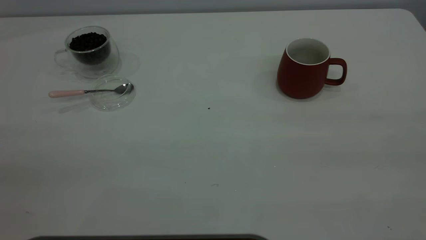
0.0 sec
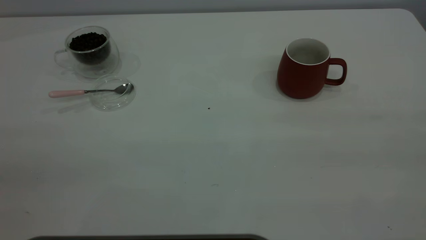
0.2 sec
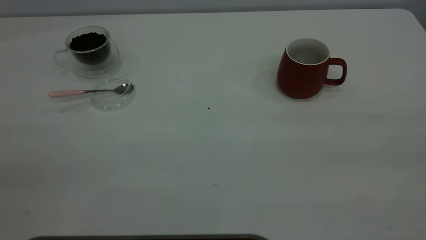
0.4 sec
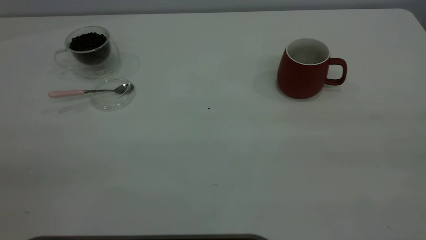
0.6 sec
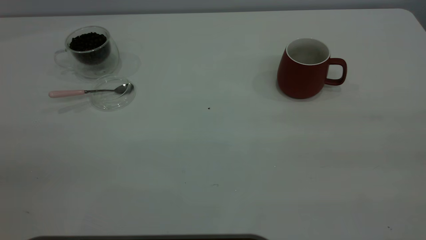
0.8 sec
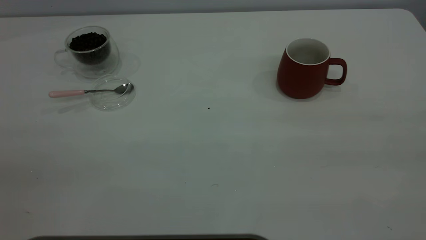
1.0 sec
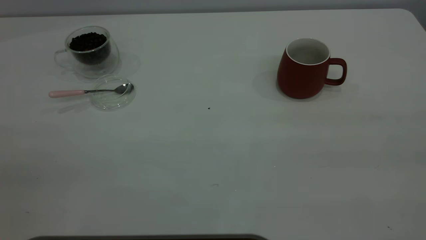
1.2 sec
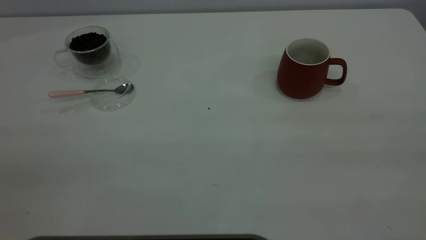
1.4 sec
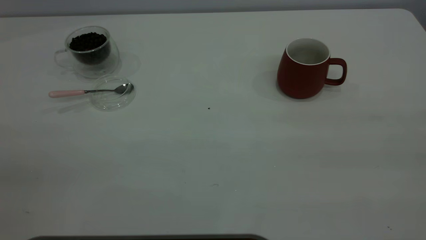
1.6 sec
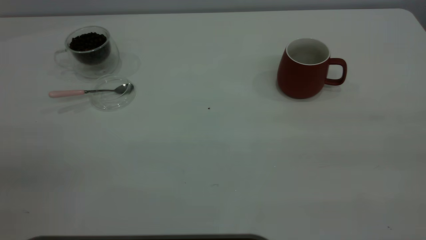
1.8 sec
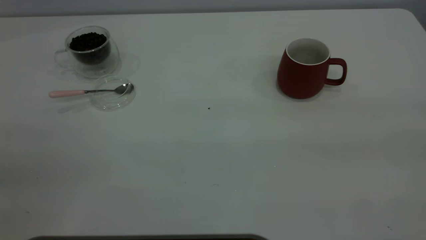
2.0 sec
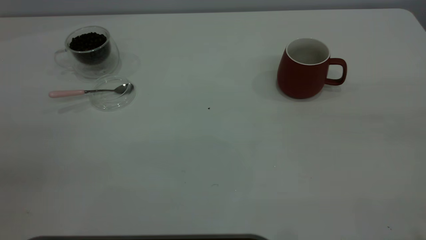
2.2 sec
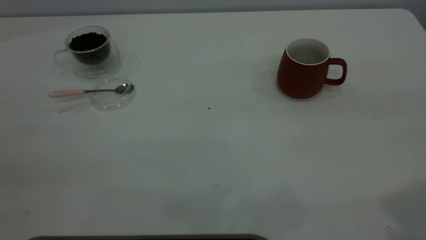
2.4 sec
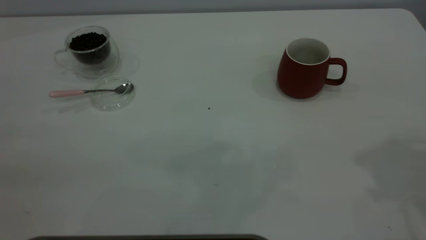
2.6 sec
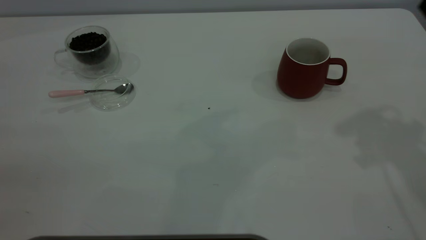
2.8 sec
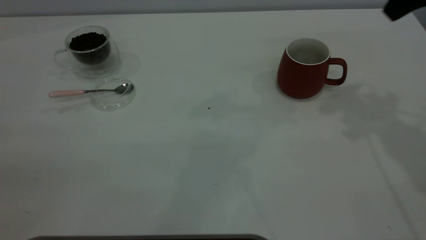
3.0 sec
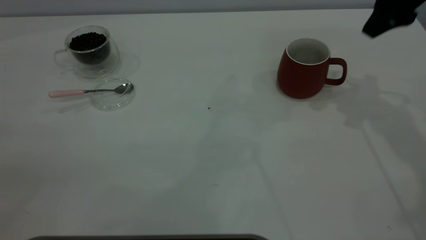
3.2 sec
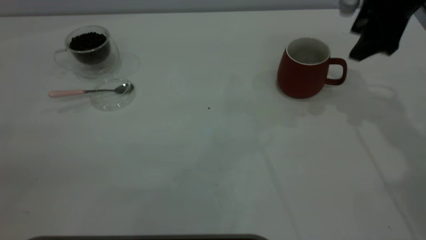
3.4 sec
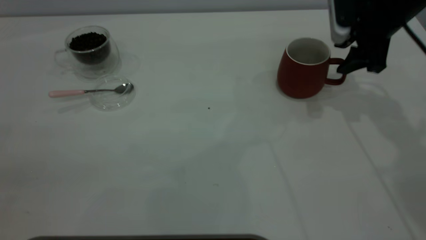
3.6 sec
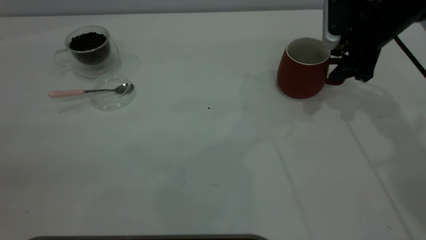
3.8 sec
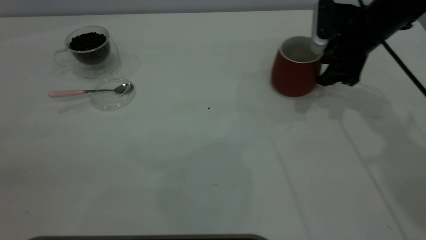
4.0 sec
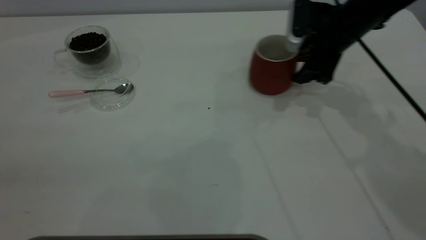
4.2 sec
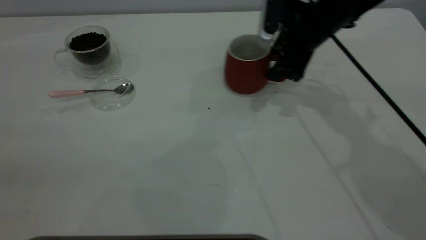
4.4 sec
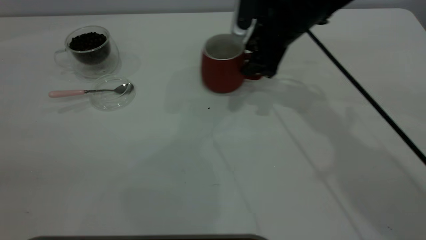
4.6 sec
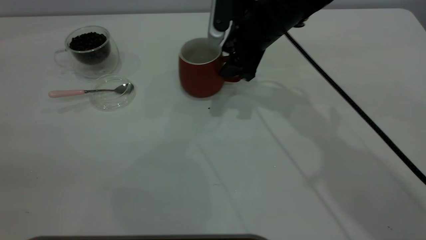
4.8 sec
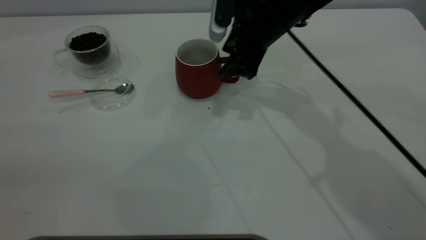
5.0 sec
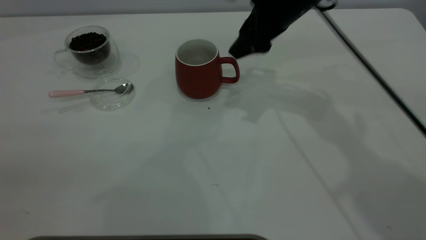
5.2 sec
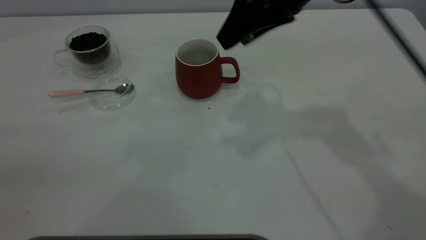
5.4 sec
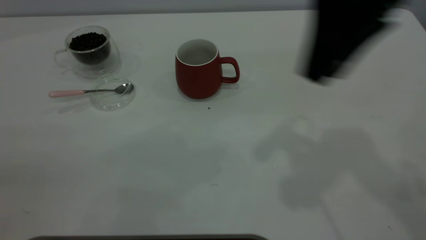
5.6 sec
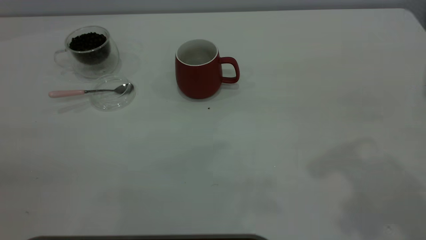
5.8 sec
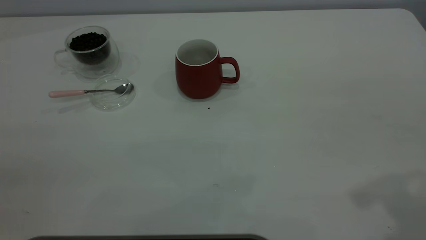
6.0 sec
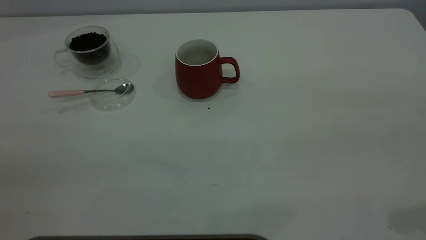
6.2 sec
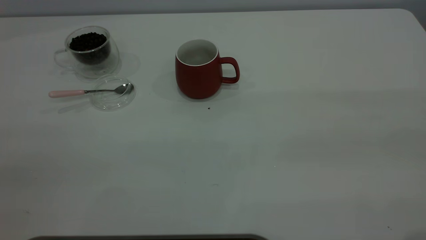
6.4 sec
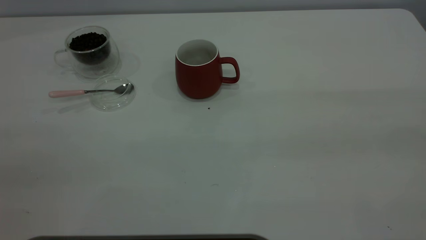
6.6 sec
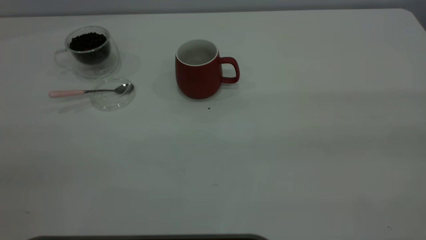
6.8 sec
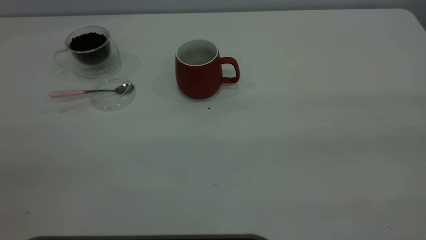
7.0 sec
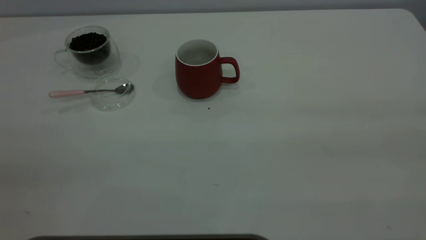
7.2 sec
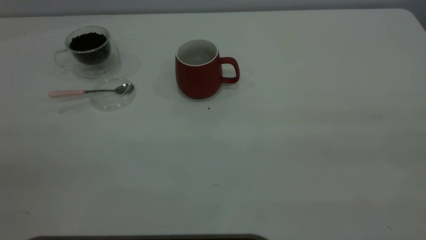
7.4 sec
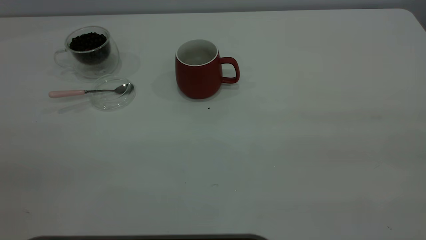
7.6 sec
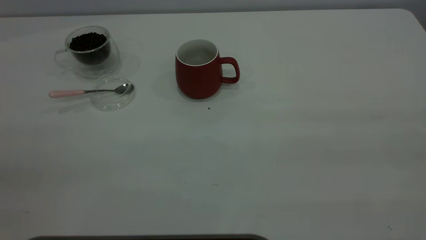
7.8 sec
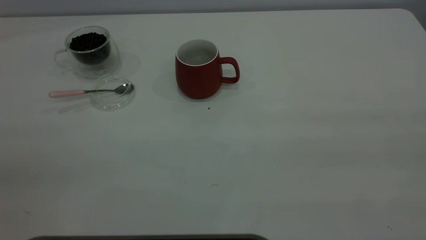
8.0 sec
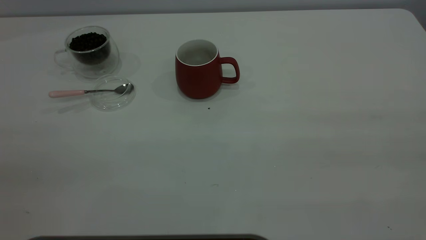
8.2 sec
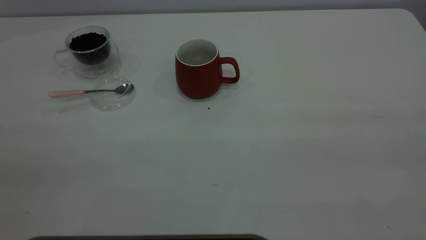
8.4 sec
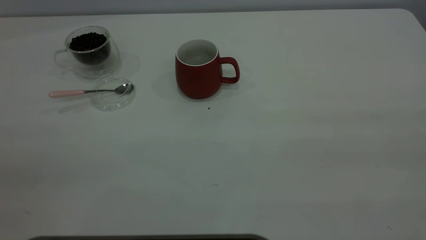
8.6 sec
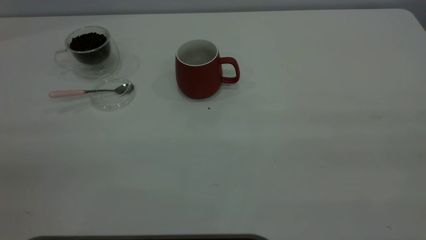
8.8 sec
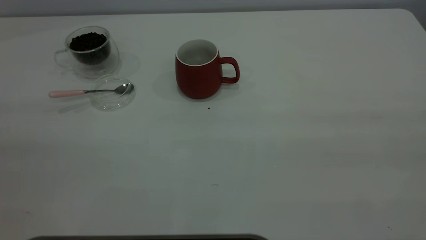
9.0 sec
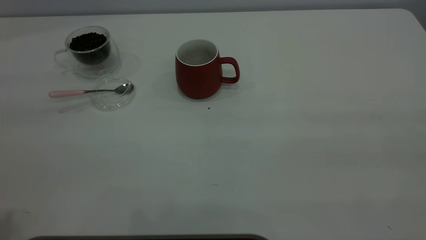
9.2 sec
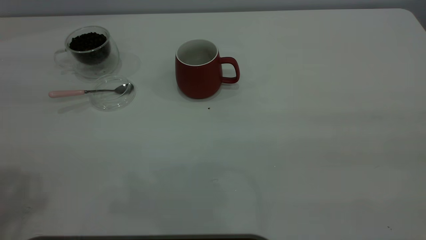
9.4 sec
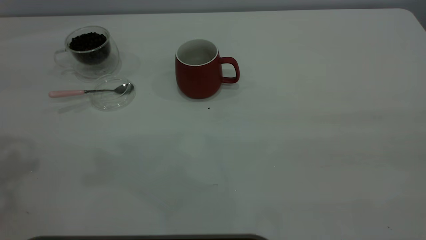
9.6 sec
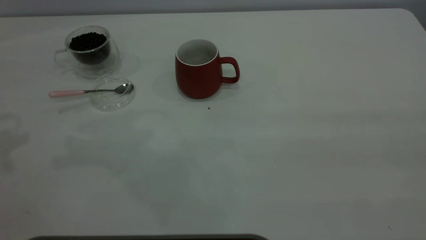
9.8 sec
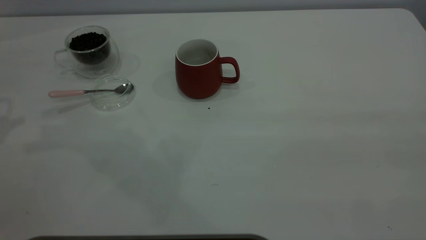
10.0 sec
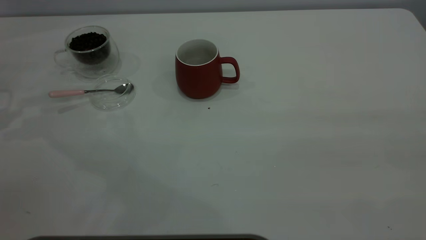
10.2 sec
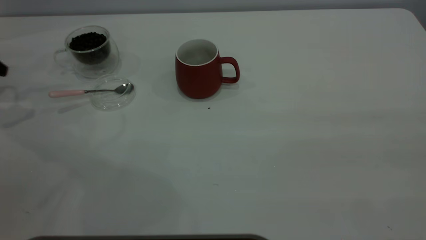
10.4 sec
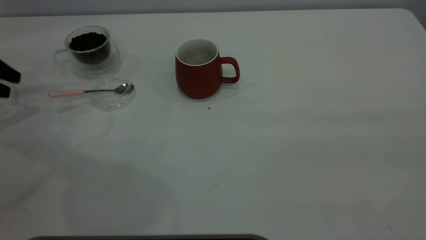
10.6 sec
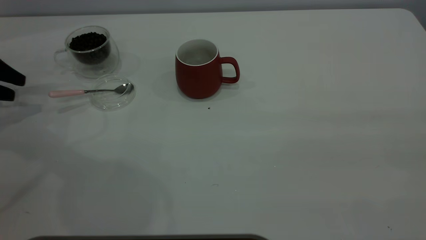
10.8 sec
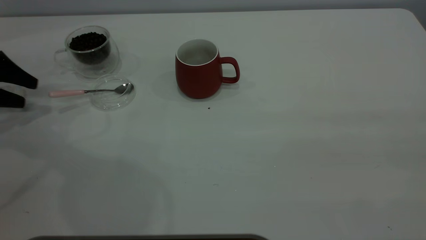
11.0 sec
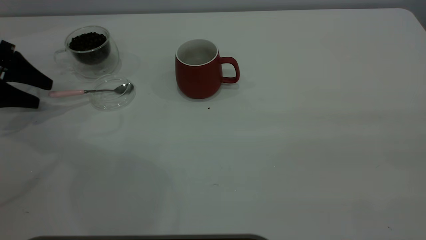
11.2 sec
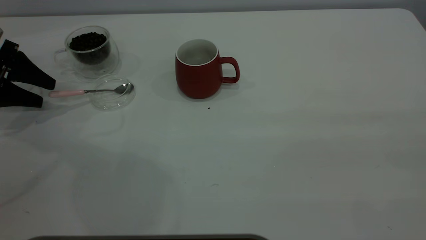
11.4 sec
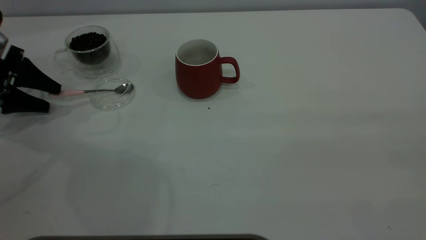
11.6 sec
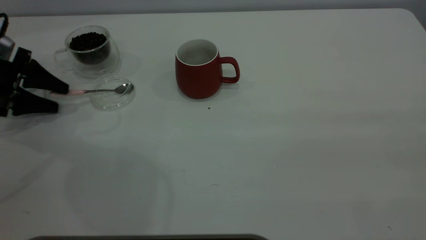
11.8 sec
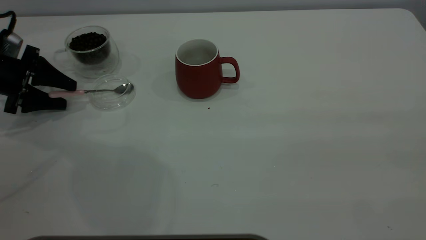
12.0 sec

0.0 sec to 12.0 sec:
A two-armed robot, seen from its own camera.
Task of the whole recording: the right gripper place the red cup in the center of the table, the left gripper take the pink spoon from the cup lid and scoop out the coffee beans from the coffee cup and put them into the red cup, the left gripper put the spoon back into the cup lid.
Step, 0.0 sec to 5.4 sec: Move the cup to the center of view.
0.0 sec to 1.6 sec: The two grippers keep their place.
3.0 sec to 4.4 sec: The right gripper heads downward, to the left and forward, covering some 20 cm.
4.4 sec to 6.0 sec: The right gripper moves backward, upward and to the right, roughly 35 cm.
10.4 sec to 12.0 sec: The left gripper moves downward and to the right, some 10 cm.

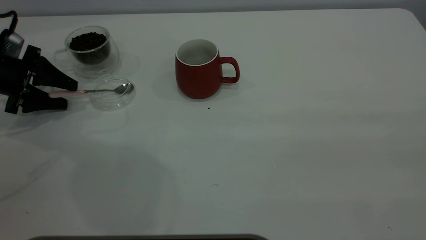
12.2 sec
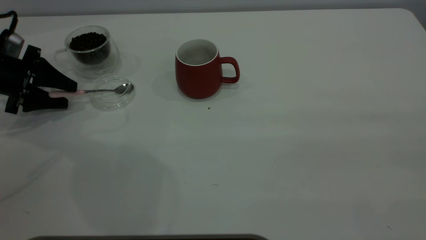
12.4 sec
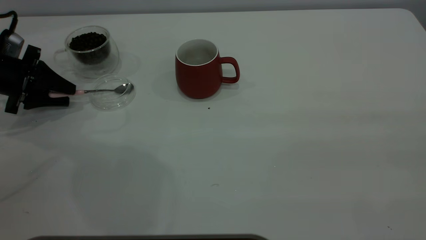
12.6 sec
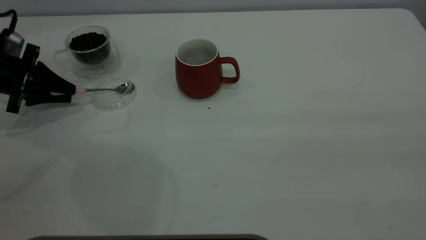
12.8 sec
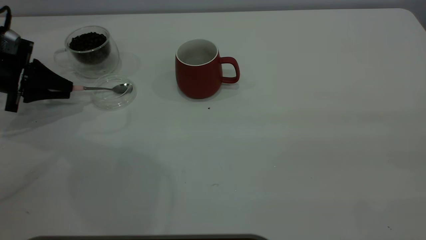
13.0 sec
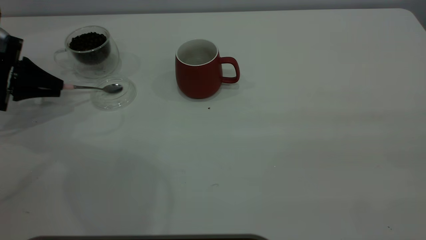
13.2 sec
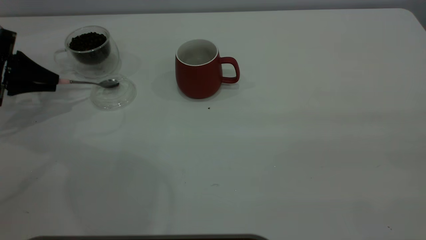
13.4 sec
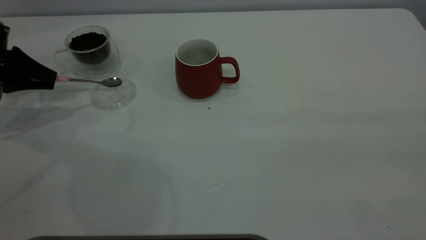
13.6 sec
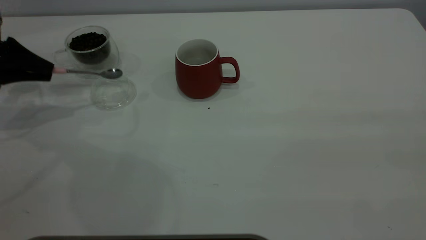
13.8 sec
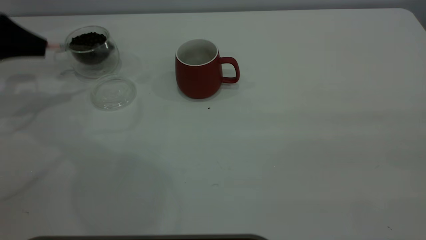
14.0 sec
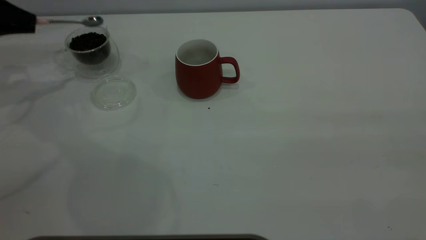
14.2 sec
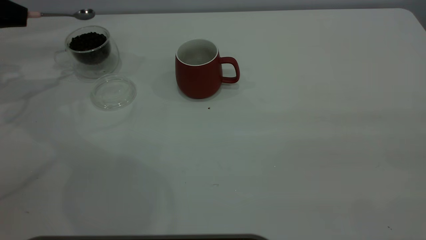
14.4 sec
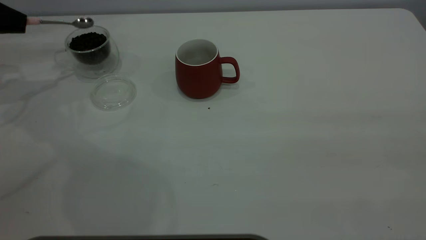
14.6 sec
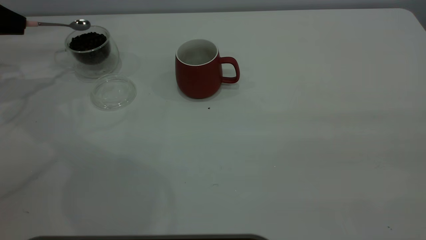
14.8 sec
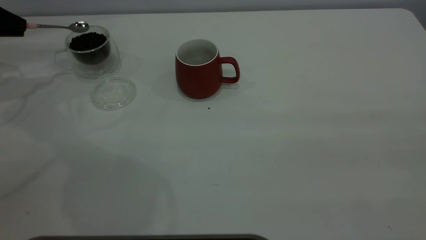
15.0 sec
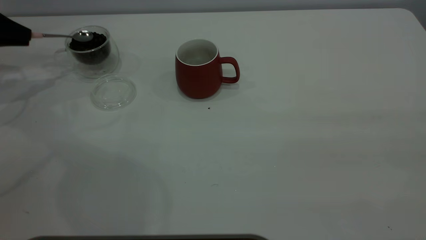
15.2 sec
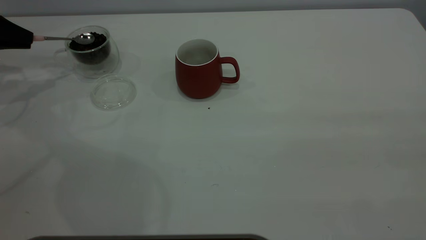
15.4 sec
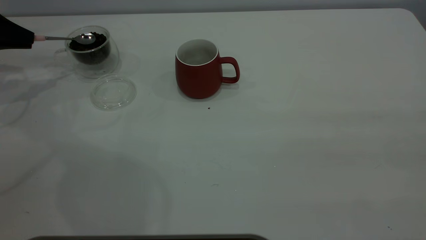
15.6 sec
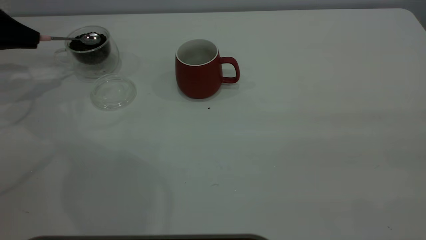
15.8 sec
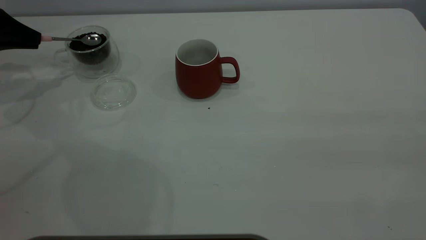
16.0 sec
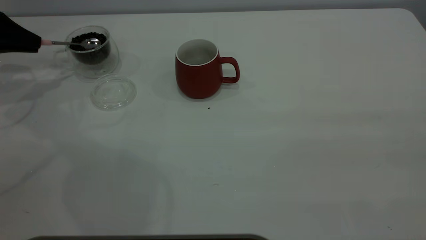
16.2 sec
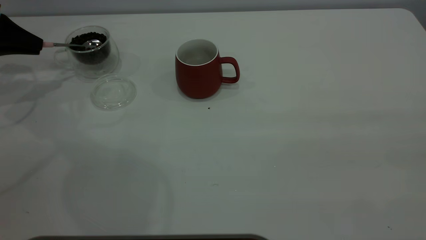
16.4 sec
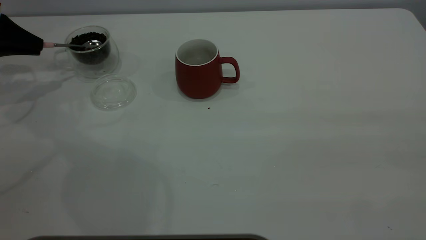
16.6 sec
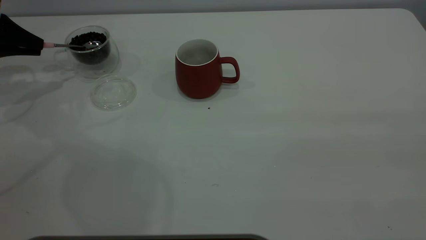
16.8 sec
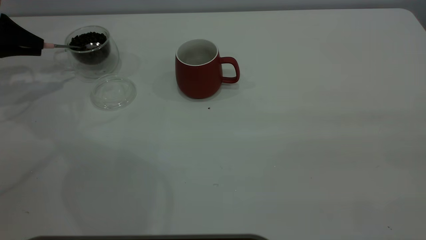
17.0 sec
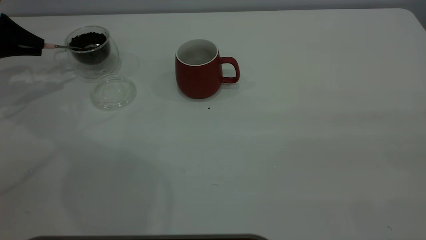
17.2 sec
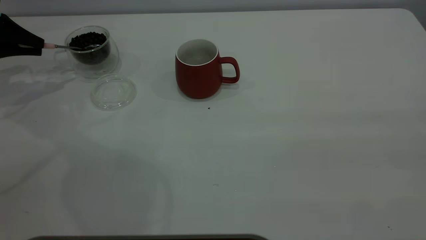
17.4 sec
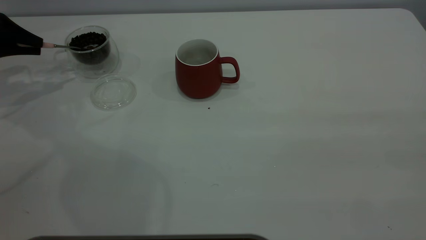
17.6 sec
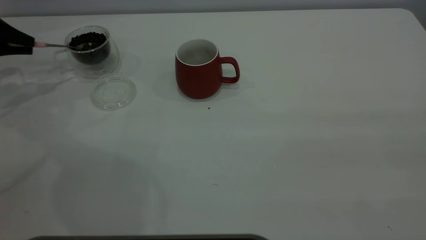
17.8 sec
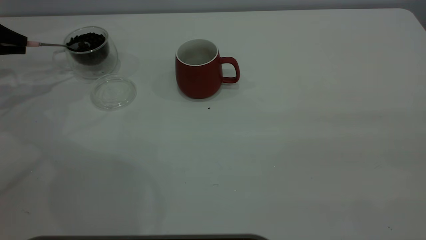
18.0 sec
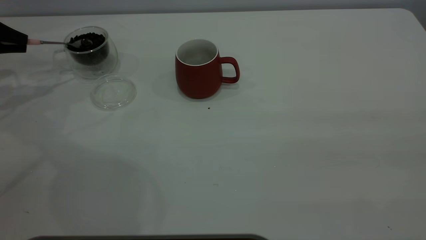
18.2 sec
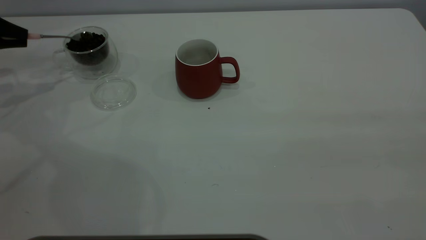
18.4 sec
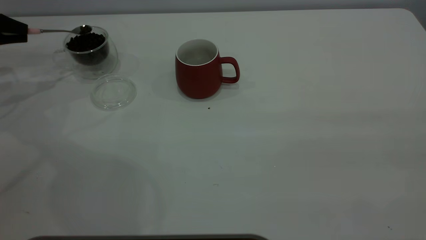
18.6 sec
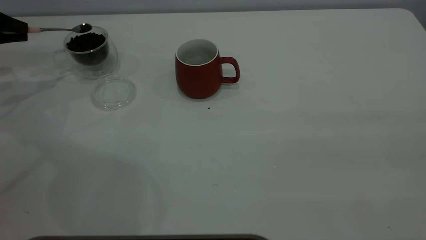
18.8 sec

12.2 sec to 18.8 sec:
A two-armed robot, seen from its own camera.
Task of the whole recording: the right gripper place the red cup in the center of the table, the left gripper take the pink spoon from the cup lid and scoop out the coffee beans from the coffee cup and put them into the red cup, the left gripper put the spoon back into the cup lid.
12.2 sec to 13.8 sec: The left gripper goes roughly 5 cm upward, and closes.
13.8 sec to 15.4 sec: The left gripper shifts by approximately 5 cm.
17.2 sec to 18.8 sec: There are only small adjustments of the grippers.
